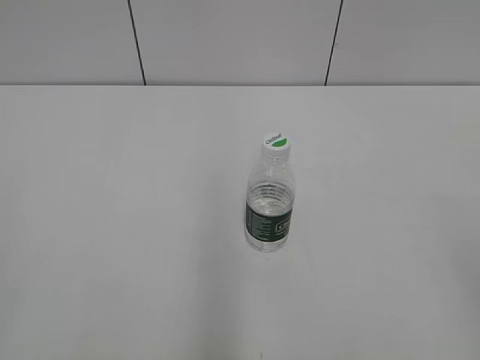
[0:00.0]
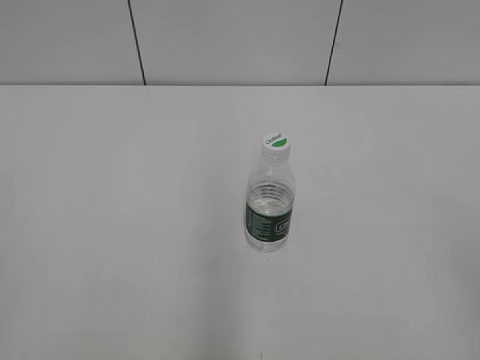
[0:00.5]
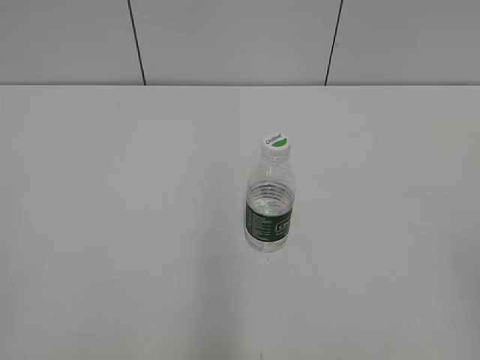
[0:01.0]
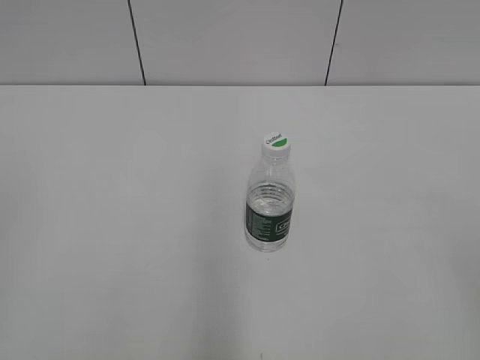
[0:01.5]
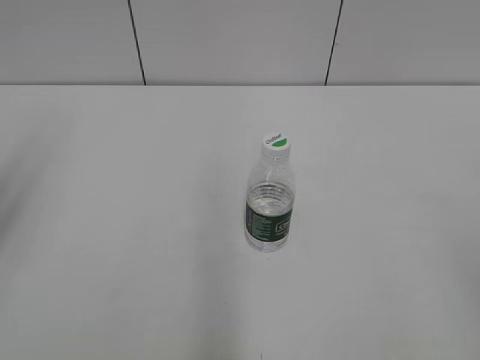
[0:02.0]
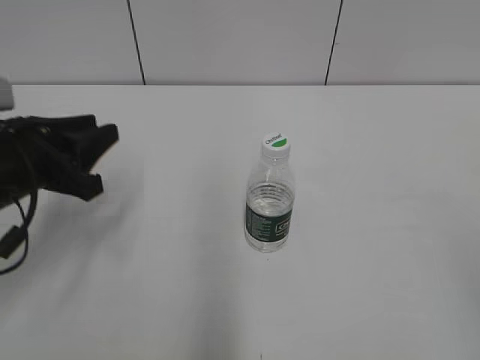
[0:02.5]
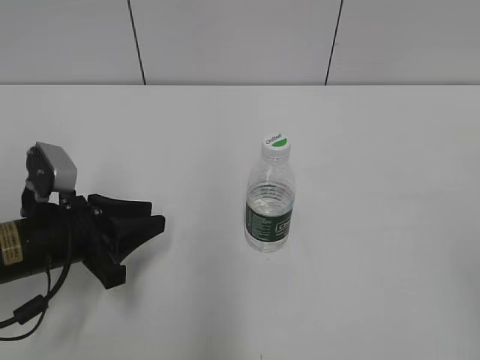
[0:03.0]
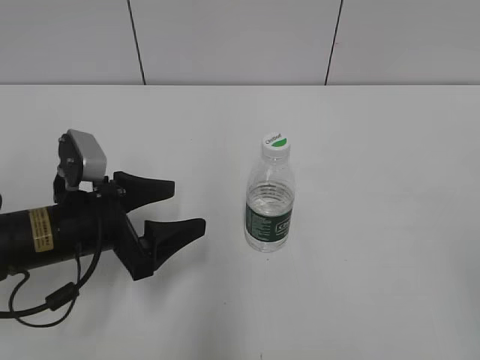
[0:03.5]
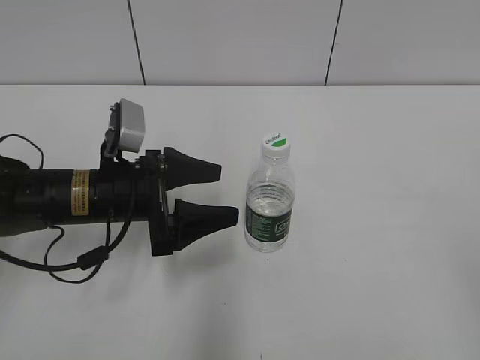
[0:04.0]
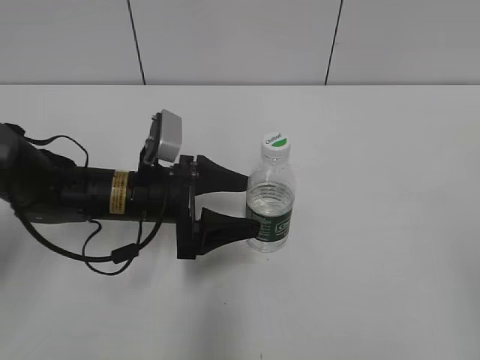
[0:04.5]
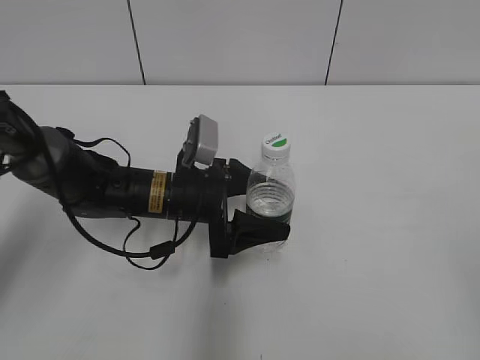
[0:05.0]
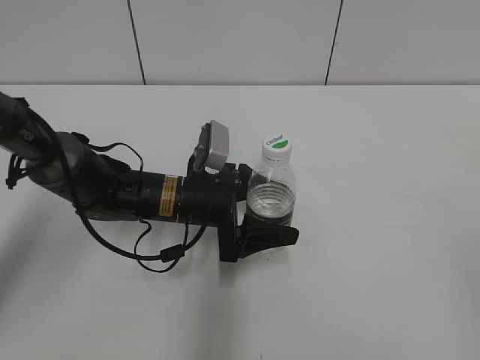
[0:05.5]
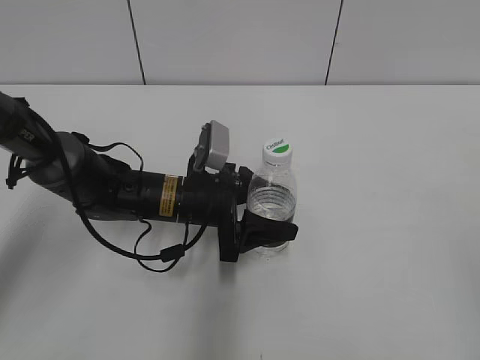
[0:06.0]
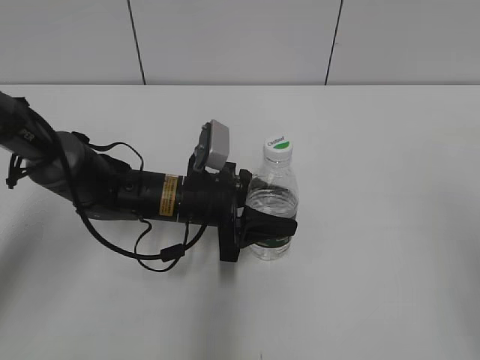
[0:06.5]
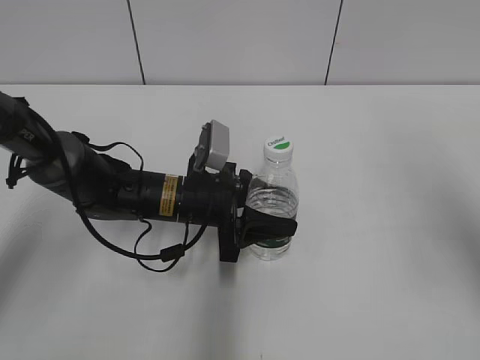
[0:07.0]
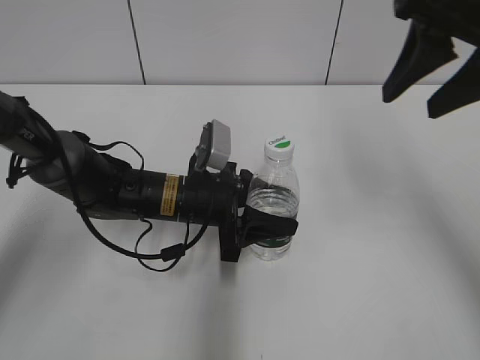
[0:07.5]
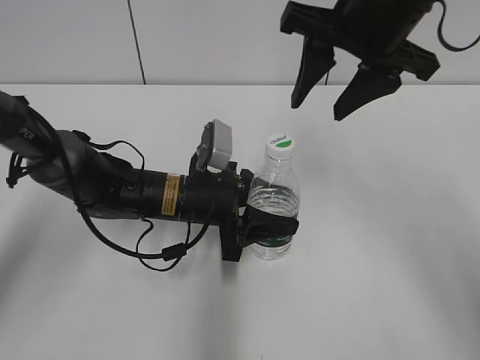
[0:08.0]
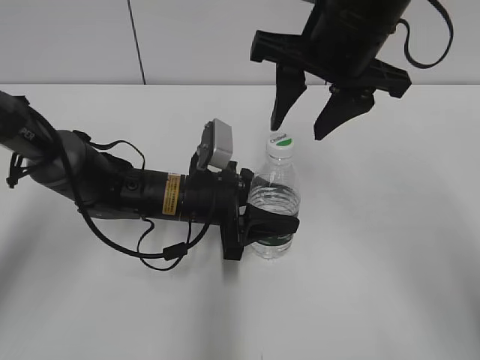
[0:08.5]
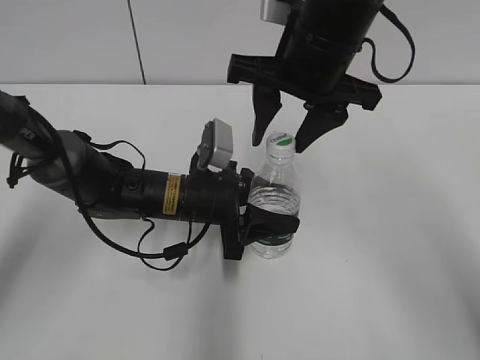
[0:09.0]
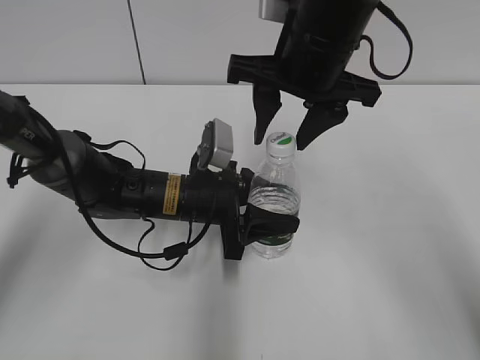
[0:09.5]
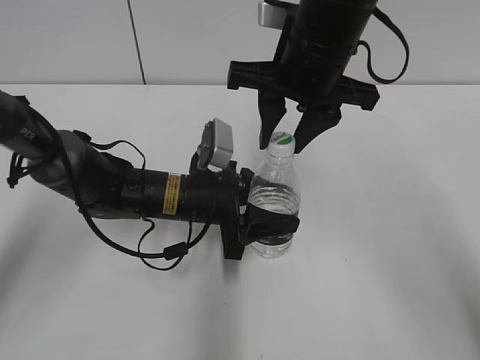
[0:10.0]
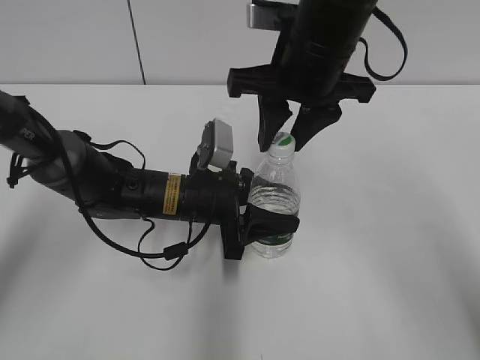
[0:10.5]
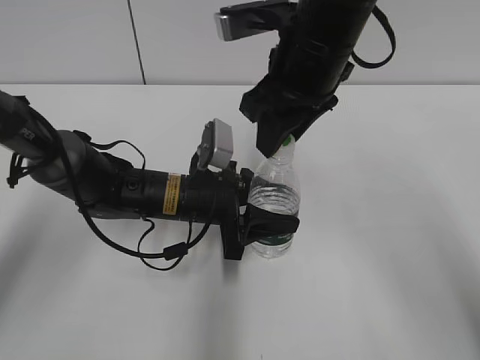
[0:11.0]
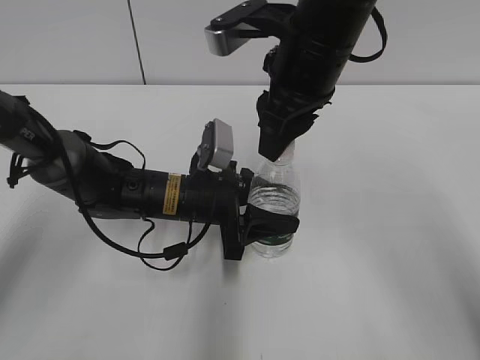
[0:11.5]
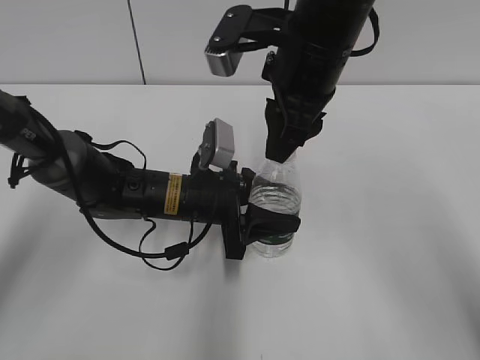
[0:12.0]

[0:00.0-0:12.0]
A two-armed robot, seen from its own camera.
Step, 0.0 to 6.5 s: Grasp the bottle and move it to the center of the table with the left gripper.
2.0 to 4.0 s: The left gripper moves downward, to the right and forward, approximately 30 cm, and opens up.
4.0 to 6.0 s: The left gripper travels to the right and downward by about 10 cm.
6.0 to 8.0 s: The right gripper goes roughly 35 cm forward and to the left. Meanwhile the left gripper closes up.
8.0 to 10.0 s: The right gripper goes approximately 5 cm to the left, and closes its fingers.

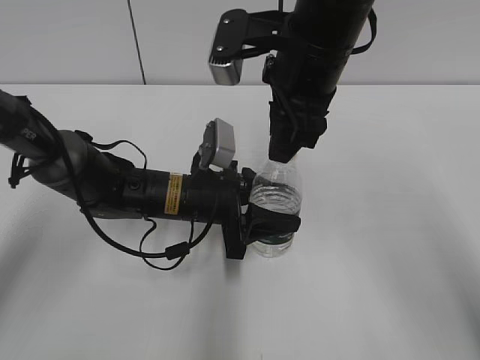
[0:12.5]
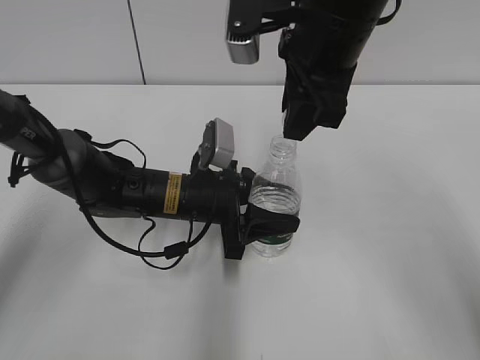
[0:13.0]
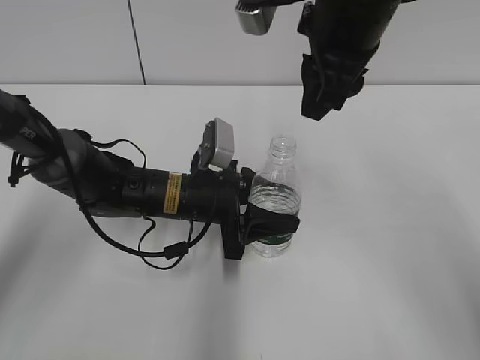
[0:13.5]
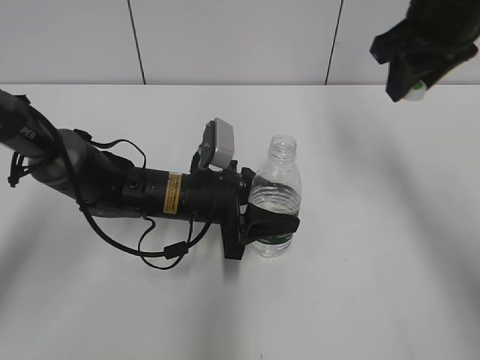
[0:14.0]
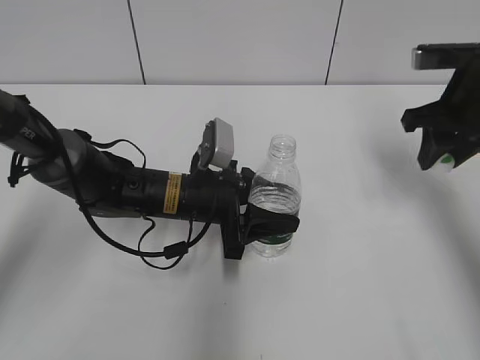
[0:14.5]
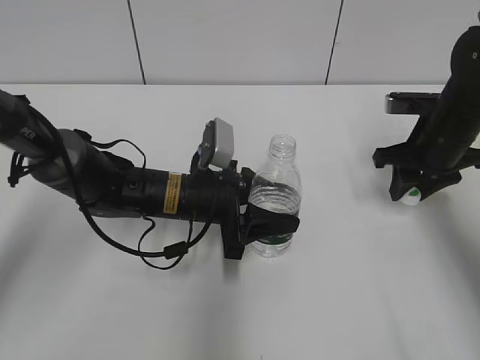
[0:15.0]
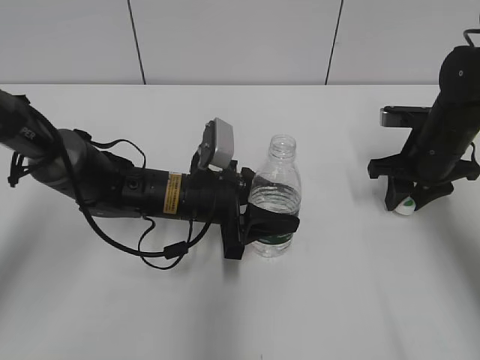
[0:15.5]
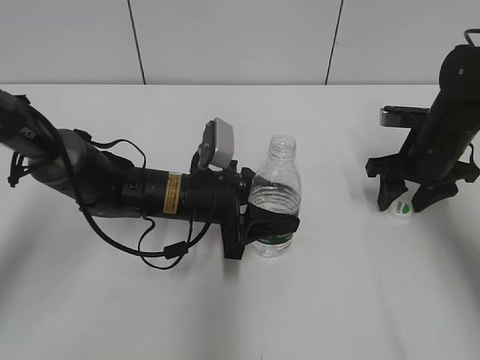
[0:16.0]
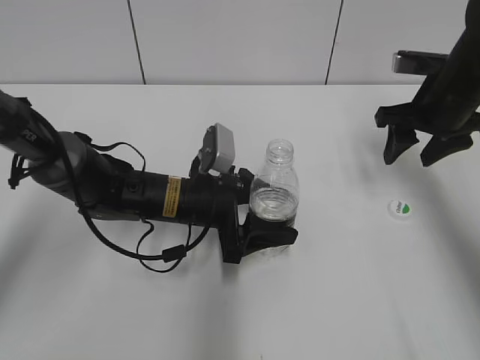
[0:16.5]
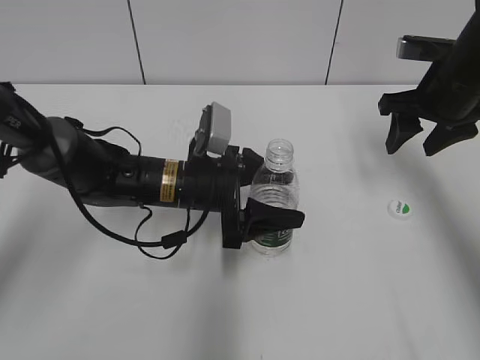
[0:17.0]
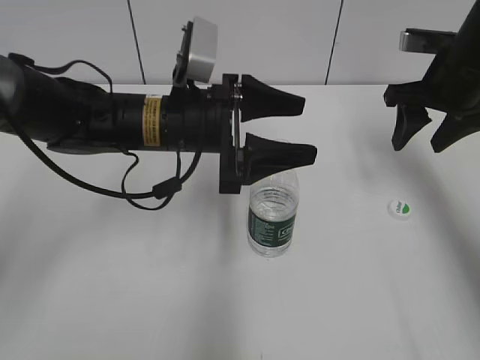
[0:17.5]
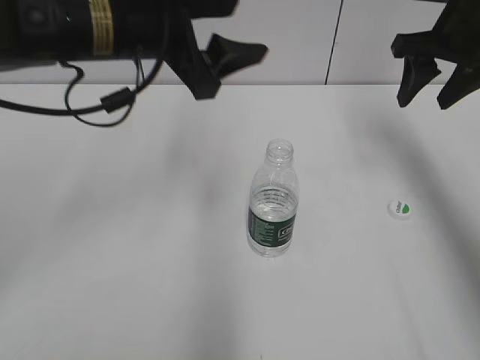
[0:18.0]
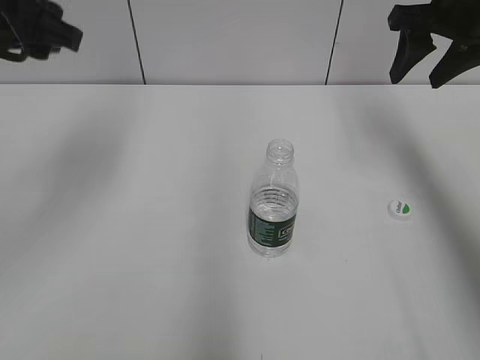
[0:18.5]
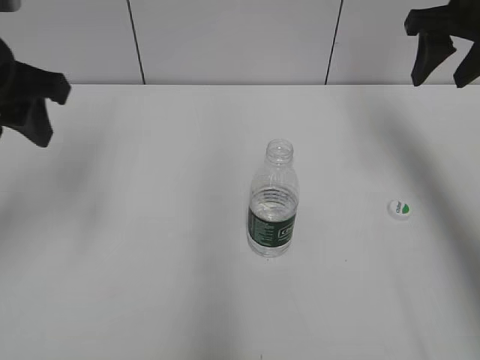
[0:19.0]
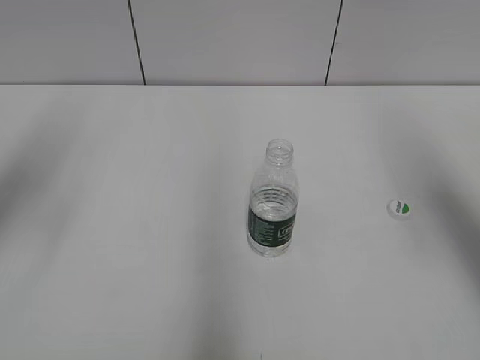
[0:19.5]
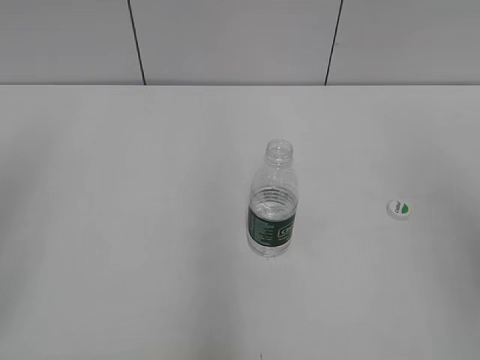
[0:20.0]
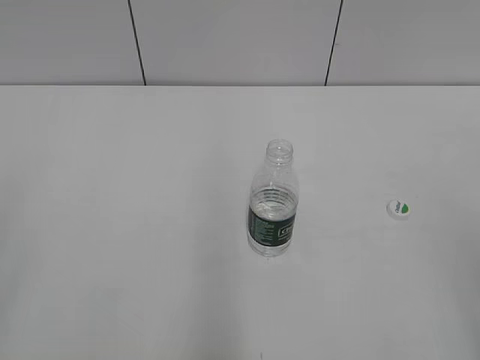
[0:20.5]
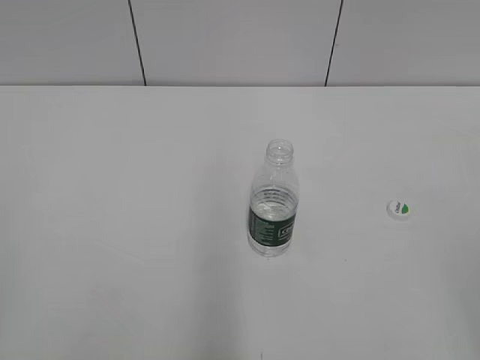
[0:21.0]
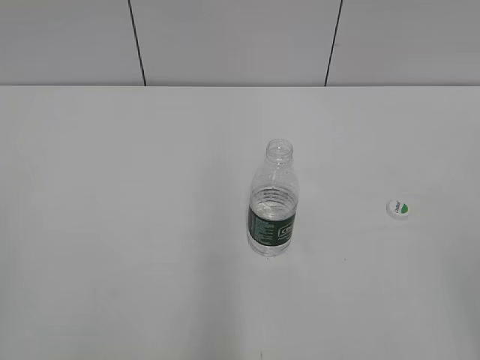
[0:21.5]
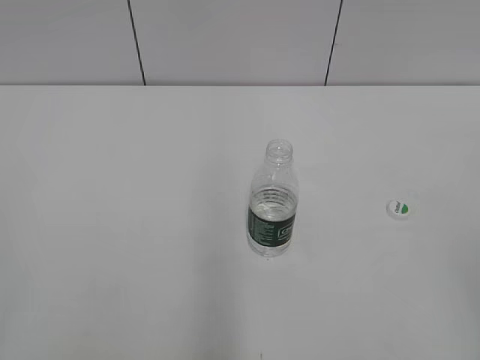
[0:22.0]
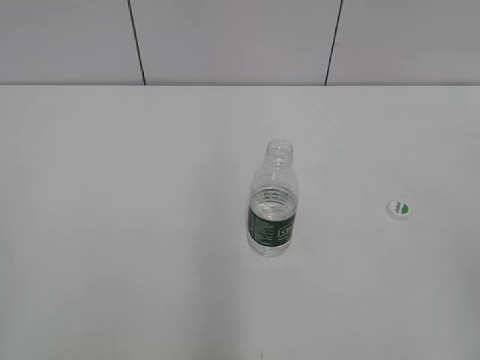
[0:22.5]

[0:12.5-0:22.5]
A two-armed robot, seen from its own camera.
Step, 13.5 to 16.5 s: Place the bottle cap on the table with the right gripper.
Step, 17.0 to 17.5 s: Place the bottle on the table with the left gripper.
12.5 to 14.5 s: The right gripper travels to the right by some 20 cm.
14.5 to 16.5 s: The left gripper opens up; the right gripper opens its fingers.
16.5 to 18.5 s: The left gripper shifts roughly 30 cm upward and to the left. Meanwhile the right gripper moves upward, roughly 10 cm.
18.5 to 20.5 s: The two grippers go about 35 cm backward.

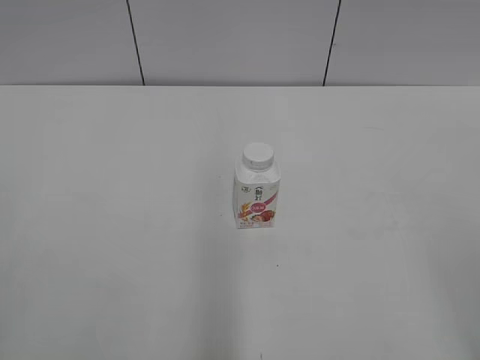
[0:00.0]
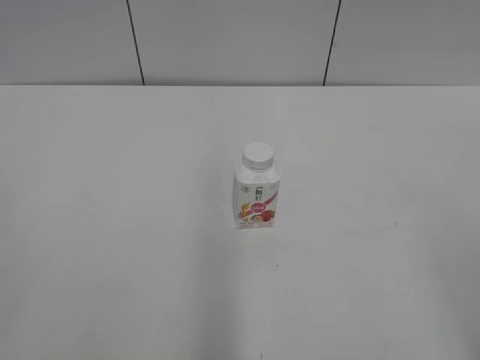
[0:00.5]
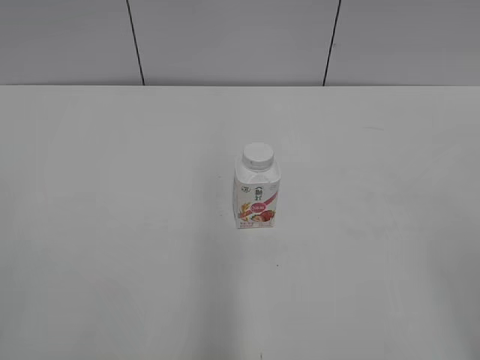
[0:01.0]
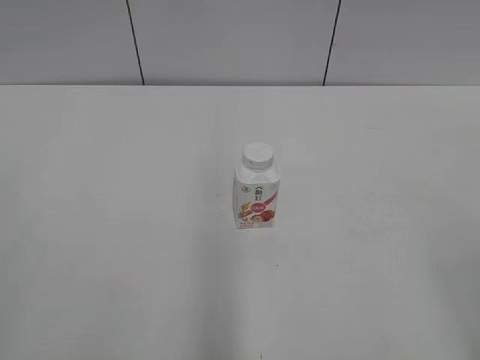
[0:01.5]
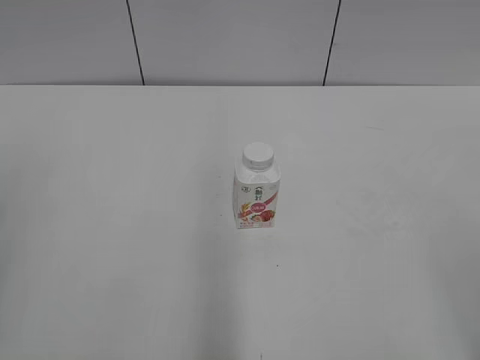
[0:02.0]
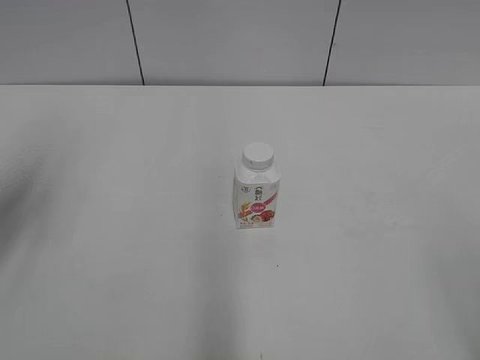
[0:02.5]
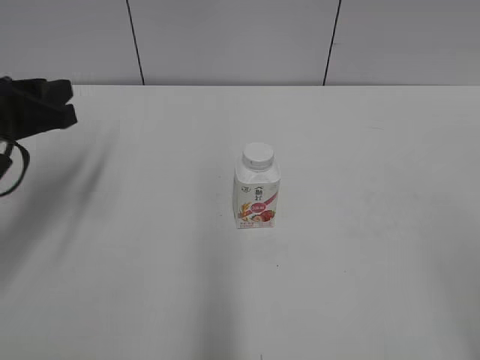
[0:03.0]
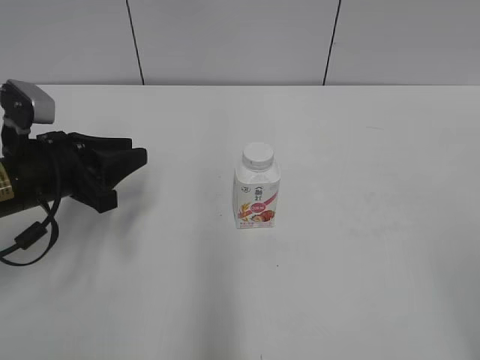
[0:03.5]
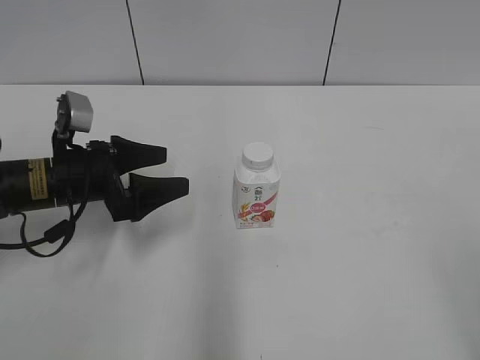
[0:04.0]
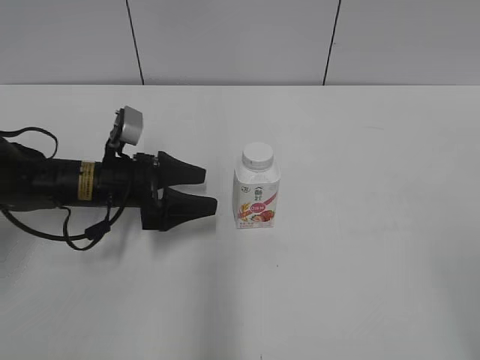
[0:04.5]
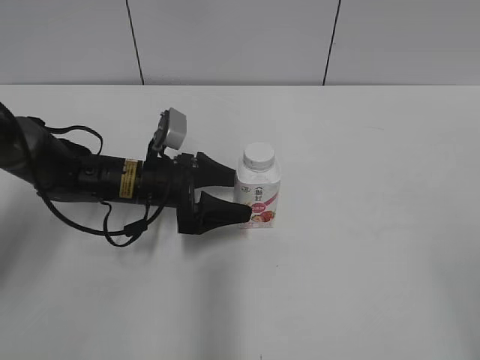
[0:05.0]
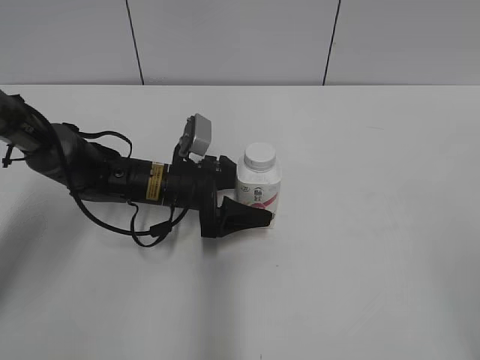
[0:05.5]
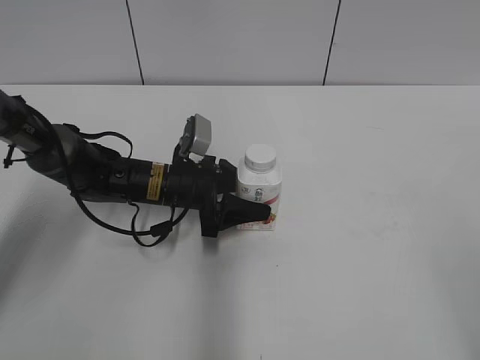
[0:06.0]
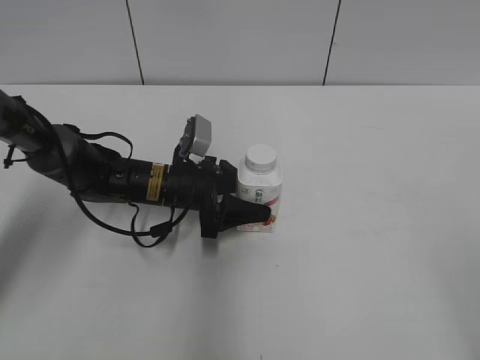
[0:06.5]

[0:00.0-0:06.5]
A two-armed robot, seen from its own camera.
Step, 0.0 to 6.0 s: Grab the Yili Changqing with the left hand.
2.0 to 4.5 s: The left gripper shifts roughly 40 cm forward, downward and to the right, and opens up.
4.5 to 6.5 s: The left gripper shifts about 10 cm to the right, and closes.
